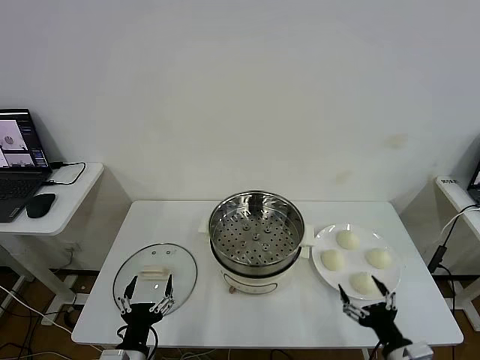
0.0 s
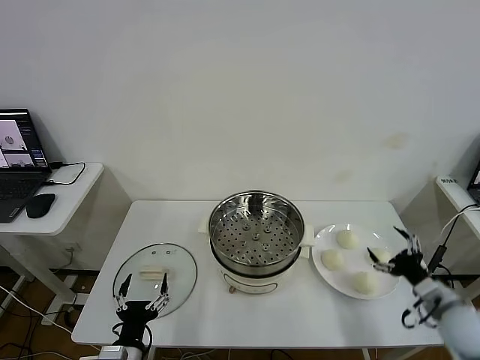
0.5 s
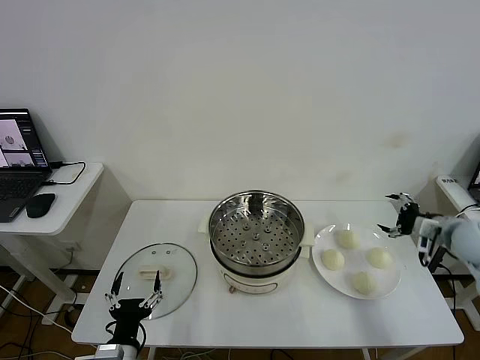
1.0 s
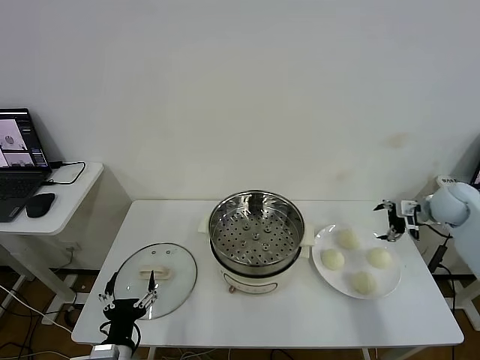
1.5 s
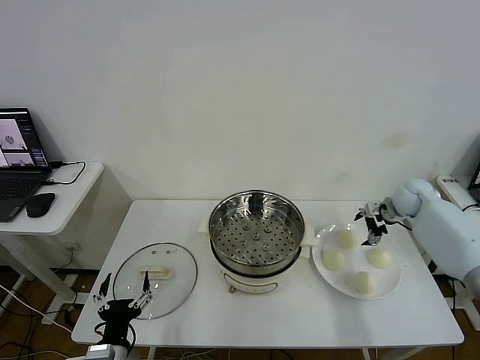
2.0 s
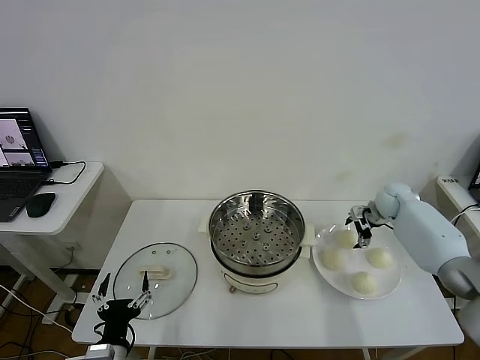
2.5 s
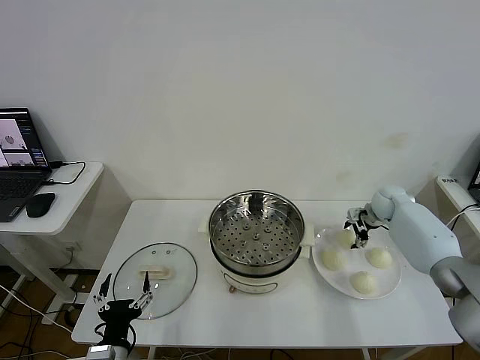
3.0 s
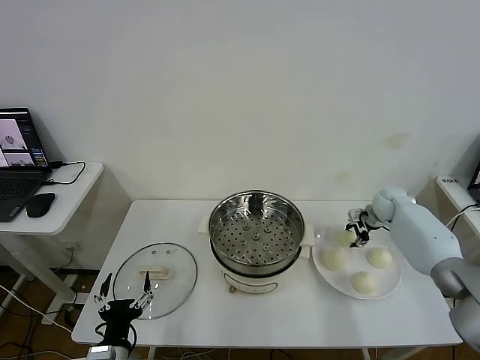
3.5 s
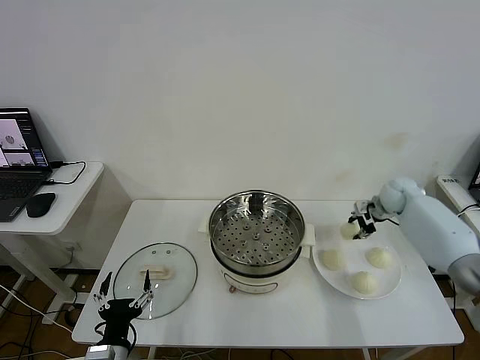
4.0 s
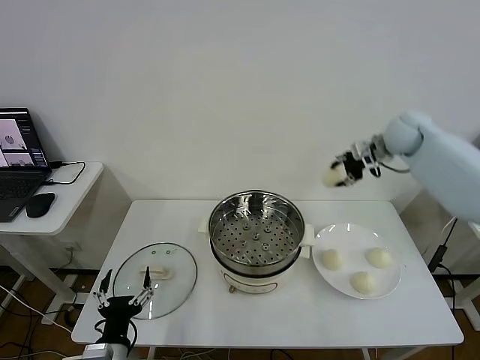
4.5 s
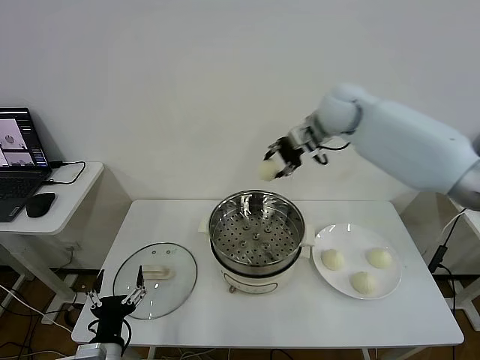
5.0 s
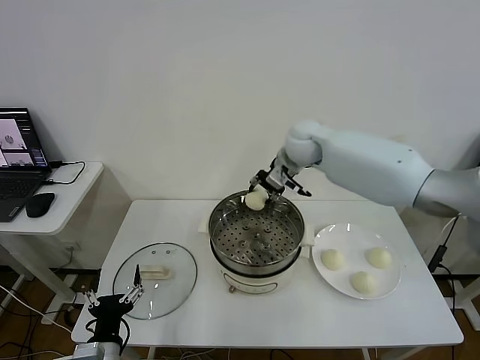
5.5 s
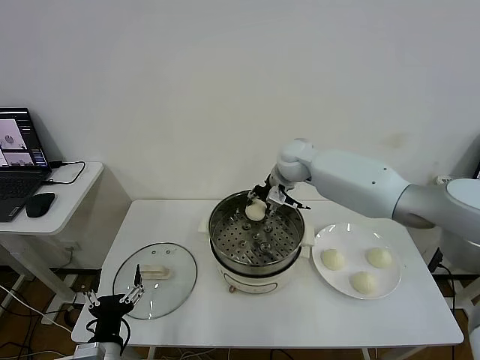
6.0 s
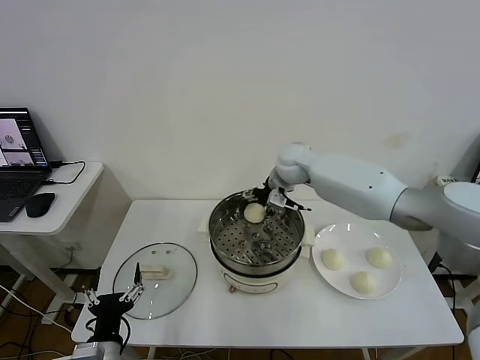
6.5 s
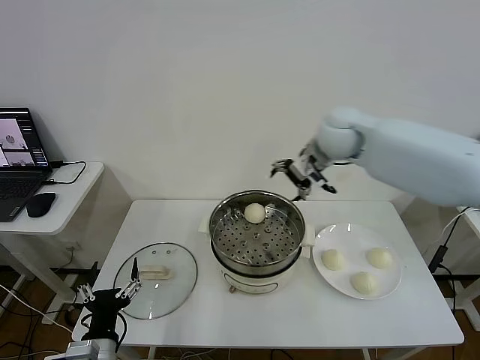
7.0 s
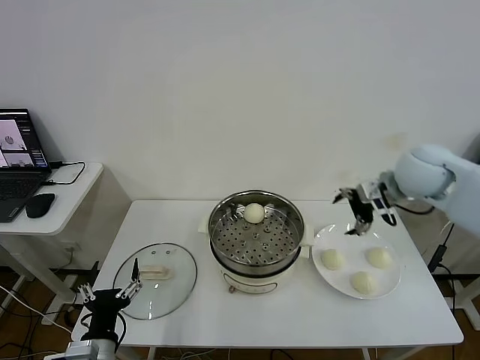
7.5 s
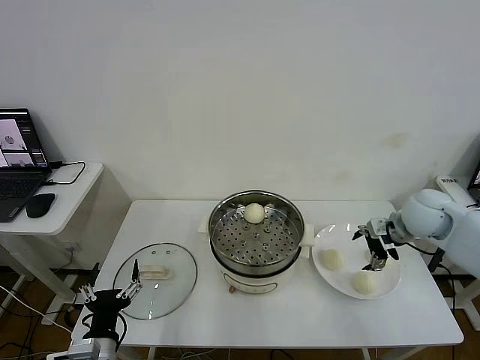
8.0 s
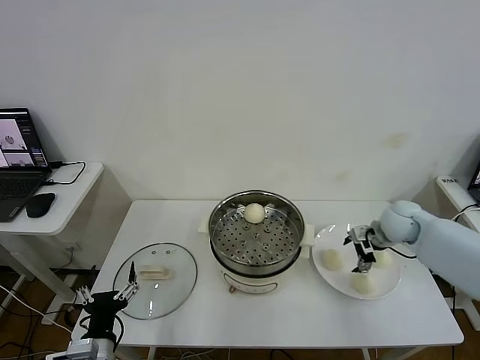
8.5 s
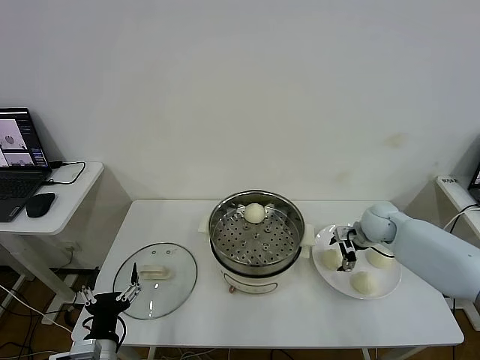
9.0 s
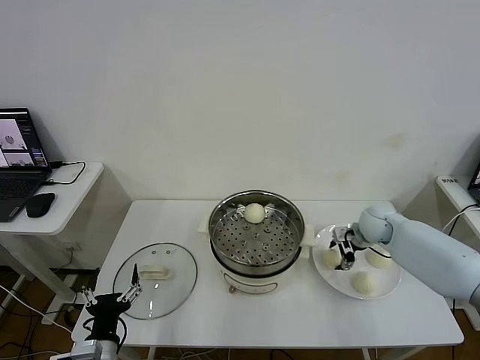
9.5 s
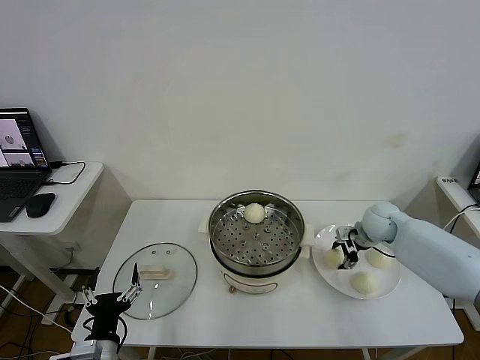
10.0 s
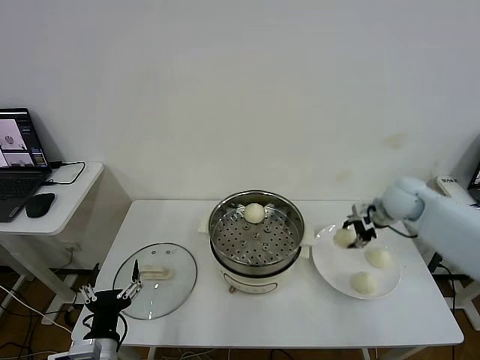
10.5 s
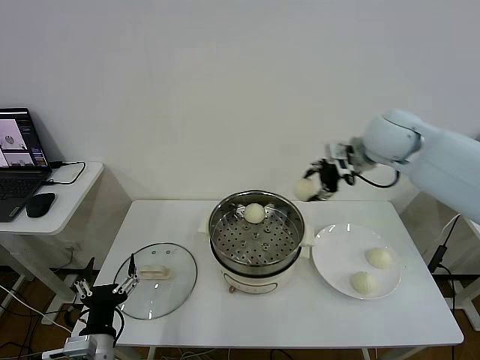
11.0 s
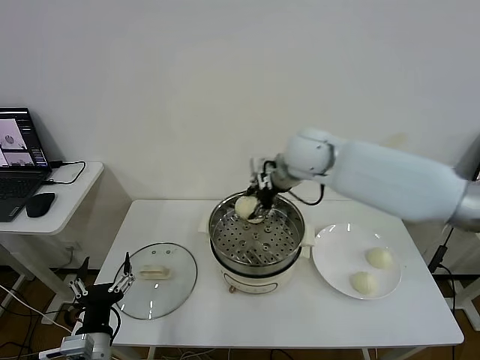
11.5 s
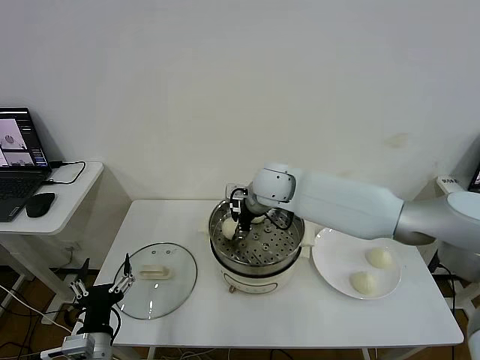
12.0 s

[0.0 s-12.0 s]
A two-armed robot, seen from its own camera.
Step, 0.0 to 3.5 s: Grasp the baozi in the plate with right gripper.
Step, 4.0 to 6.5 s: Place the baozi on the steamer with right gripper.
Step, 7.0 to 9.5 s: Grasp the baozi in the plate with right gripper.
2.0 to 4.0 s: The right gripper closes up.
4.0 to 6.0 s: The right gripper moves to the left, roughly 30 cm.
6.0 to 8.0 s: The right gripper goes about 30 cm to the right and backward, and opens up.
8.0 to 10.0 s: The right gripper heads downward and forward, covering roughly 10 cm, and closes up.
10.0 to 12.0 s: The right gripper goes about 30 cm to the left and upward.

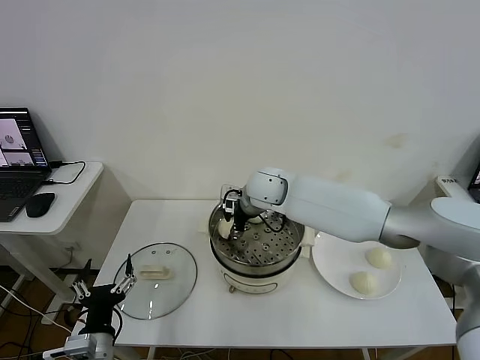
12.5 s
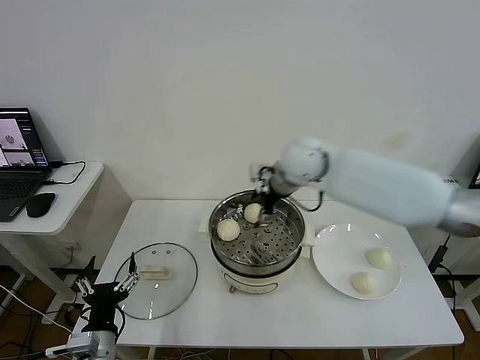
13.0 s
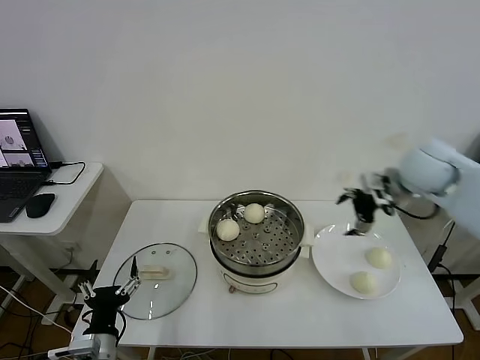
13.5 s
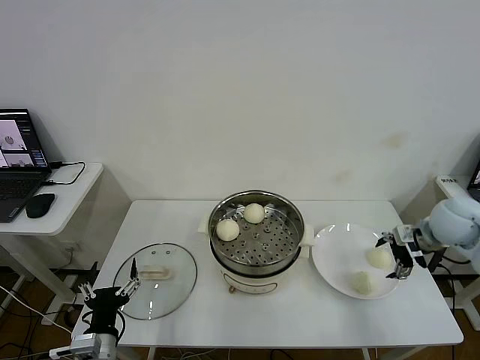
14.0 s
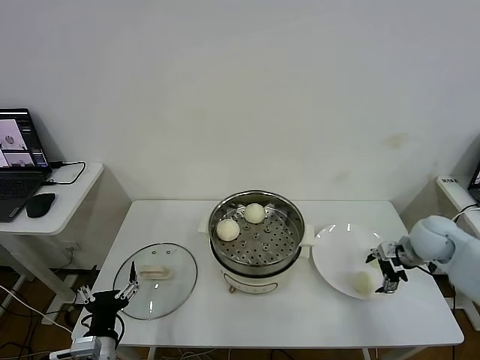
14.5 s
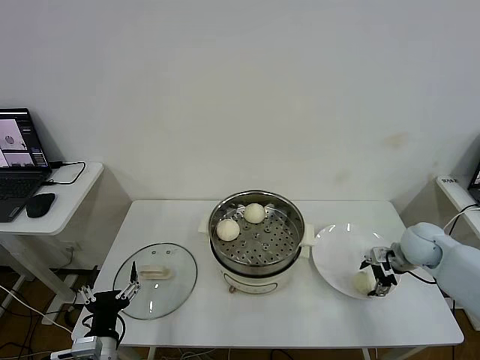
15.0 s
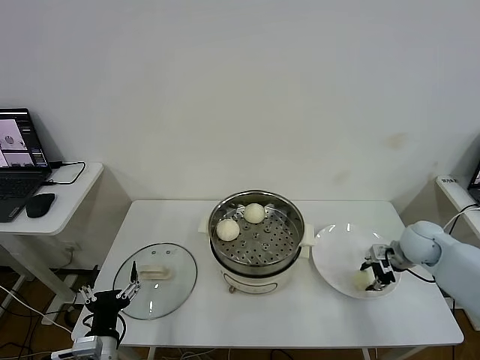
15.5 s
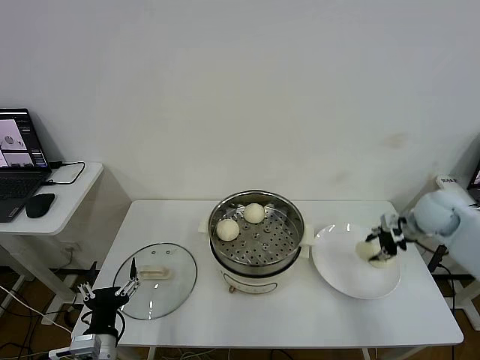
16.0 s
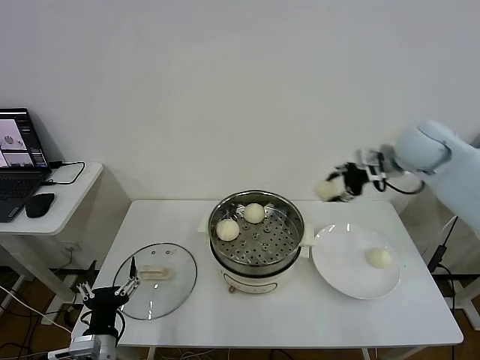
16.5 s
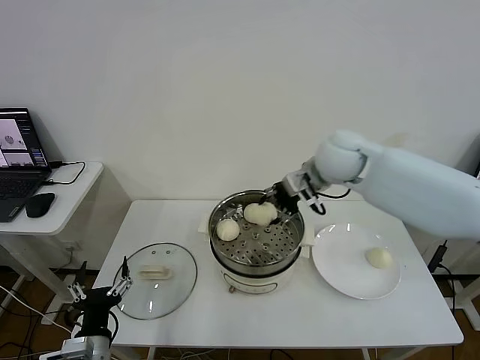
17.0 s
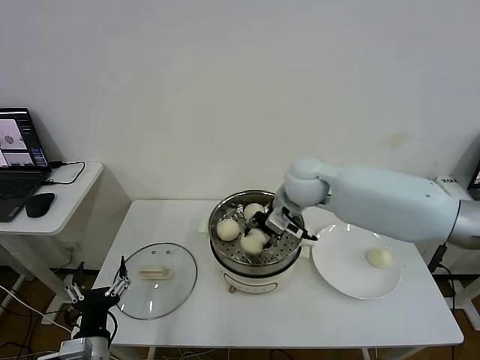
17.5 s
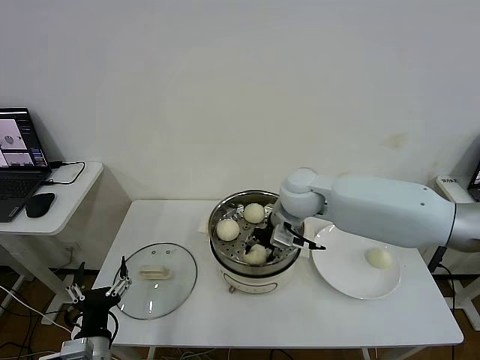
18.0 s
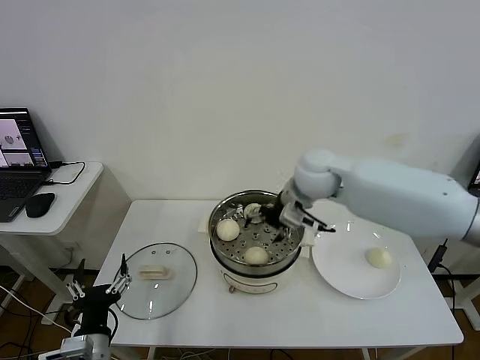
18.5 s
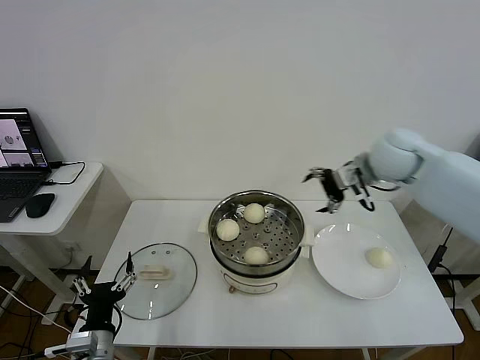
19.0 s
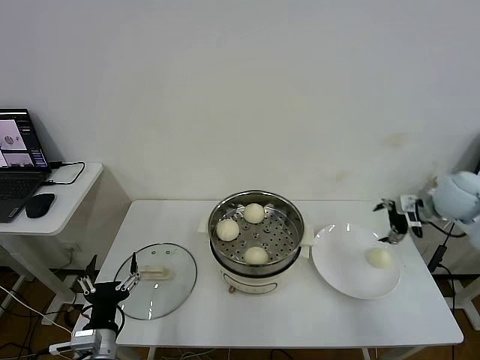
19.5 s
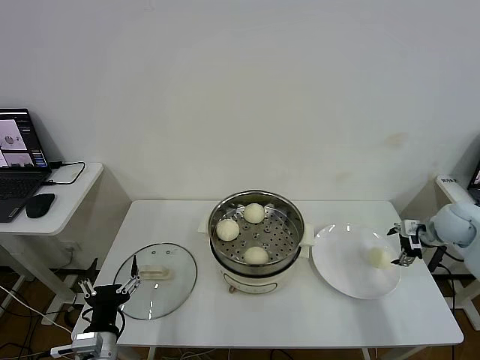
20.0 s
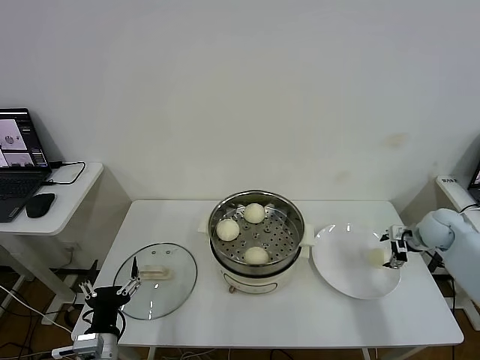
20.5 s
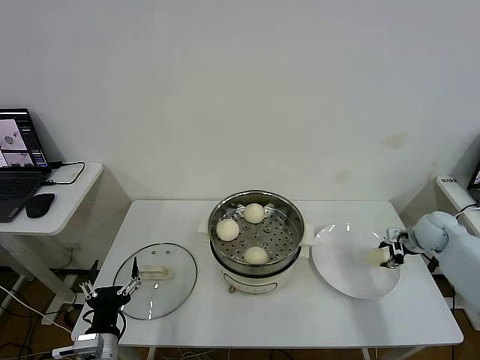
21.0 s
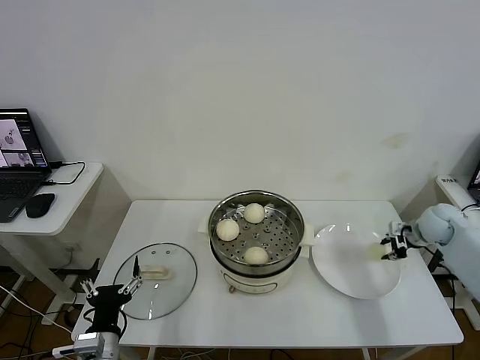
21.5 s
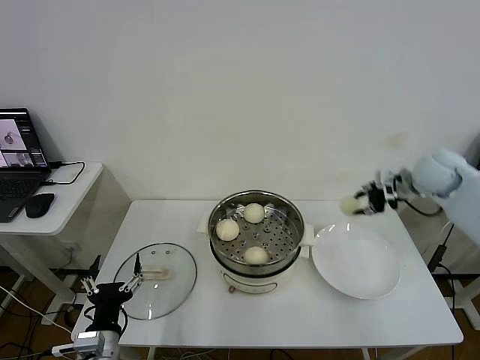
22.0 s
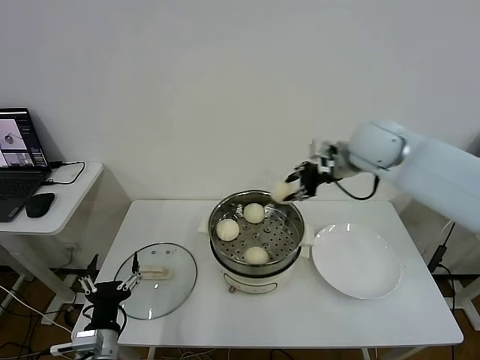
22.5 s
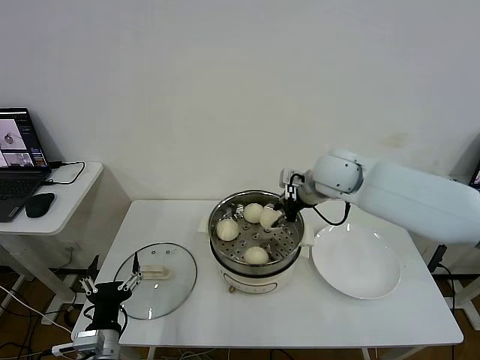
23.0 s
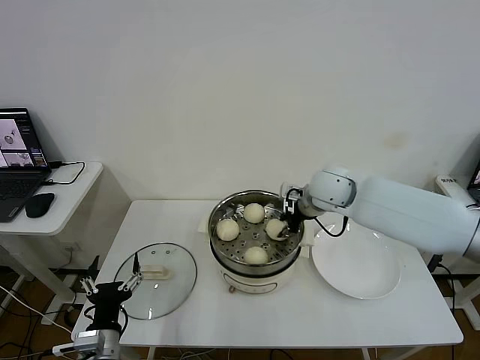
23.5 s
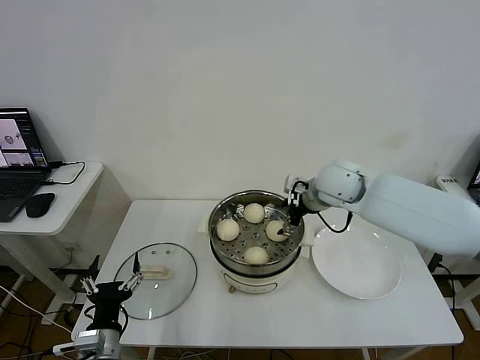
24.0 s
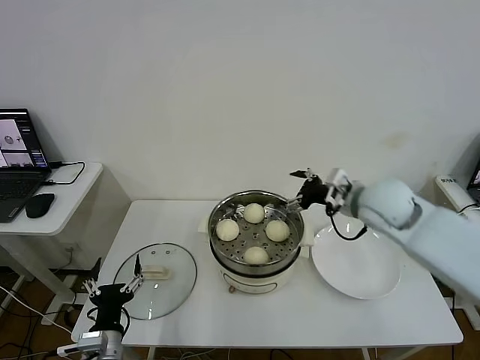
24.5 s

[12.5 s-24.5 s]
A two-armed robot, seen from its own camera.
Step, 13.0 to 15.5 s: Grasp the baozi in the plate with right gripper.
Step, 16.0 to 18.0 s: Place the baozi on the steamer with right gripper.
Step, 18.5 to 21.0 s: Grasp the baozi in the plate with right gripper.
Step, 21.5 to 23.5 s: Place the baozi on the steamer with right gripper.
12.5 to 14.5 s: The right gripper is displaced to the right by approximately 40 cm, and opens.
14.5 to 16.5 s: The right gripper shifts approximately 20 cm upward, to the left and forward, and closes its fingers.
16.5 to 18.5 s: The right gripper moves to the left, roughly 20 cm, and opens.
18.5 to 20.5 s: The right gripper goes roughly 40 cm to the right and downward.
20.5 to 22.5 s: The right gripper heads to the left and upward, covering some 30 cm, and closes.
22.5 to 24.5 s: The right gripper heads downward and backward, covering approximately 10 cm, and opens its fingers.

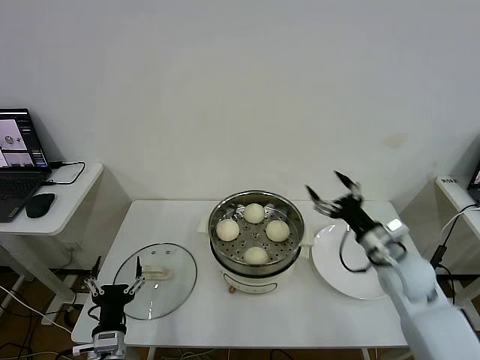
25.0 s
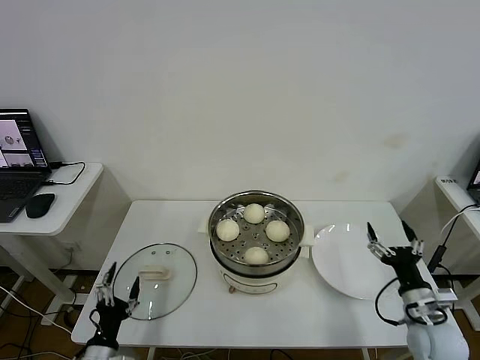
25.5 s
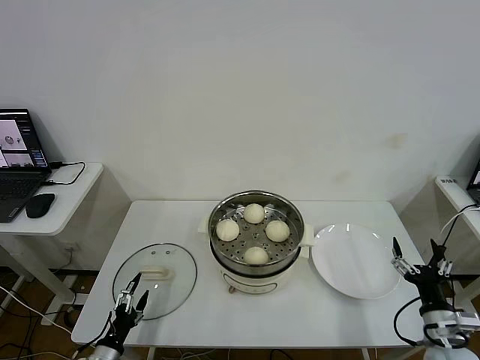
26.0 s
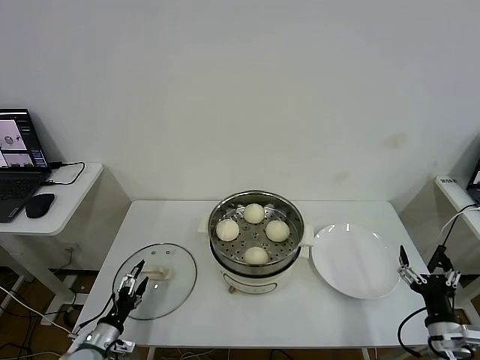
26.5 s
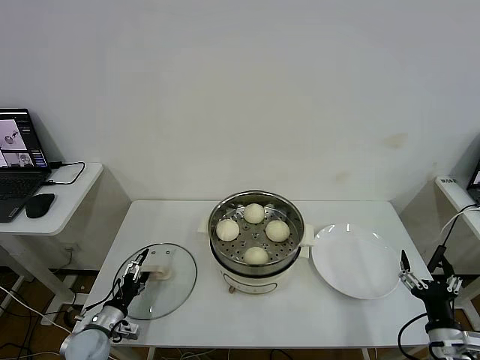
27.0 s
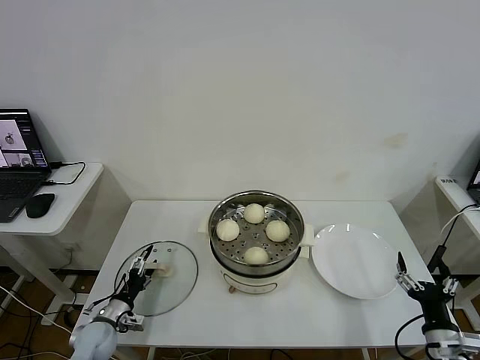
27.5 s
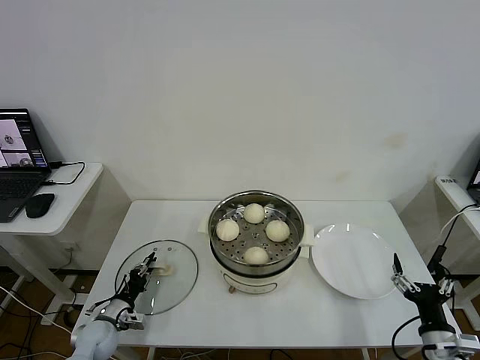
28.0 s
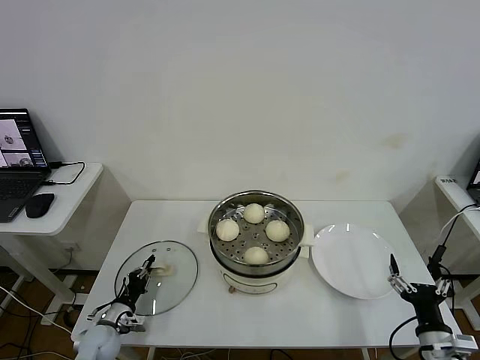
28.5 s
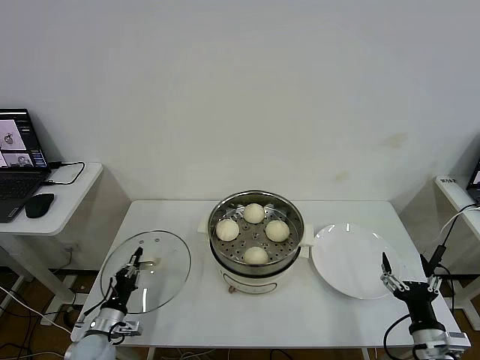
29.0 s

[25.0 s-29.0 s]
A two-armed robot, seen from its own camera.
Step, 25.0 to 28.0 s: Grasp the pot lid with left gripper.
25.0 to 27.0 s: The left gripper heads to the left, forward and downward, covering about 15 cm; the right gripper heads backward and downward, covering about 25 cm.
27.0 to 29.0 s: The left gripper closes up.
